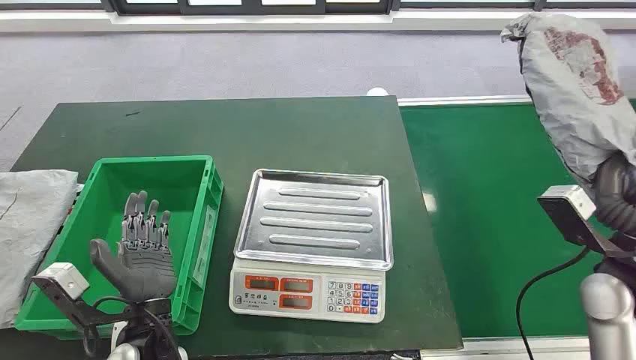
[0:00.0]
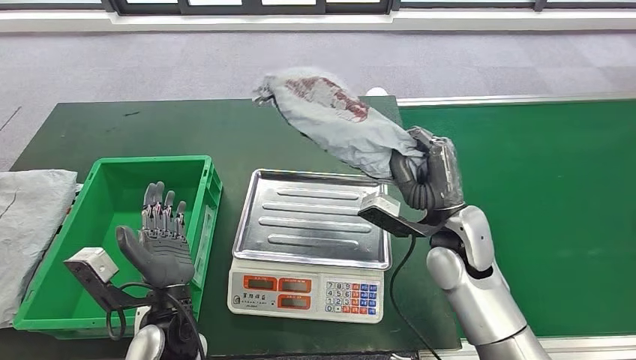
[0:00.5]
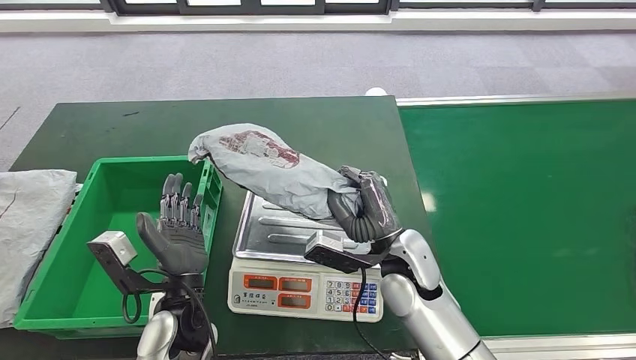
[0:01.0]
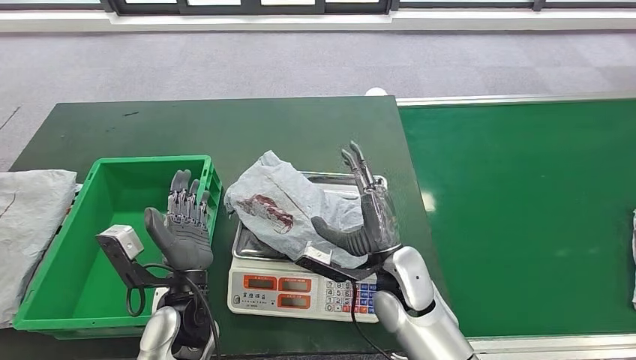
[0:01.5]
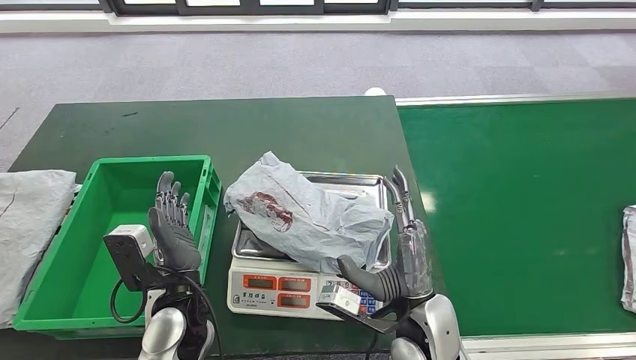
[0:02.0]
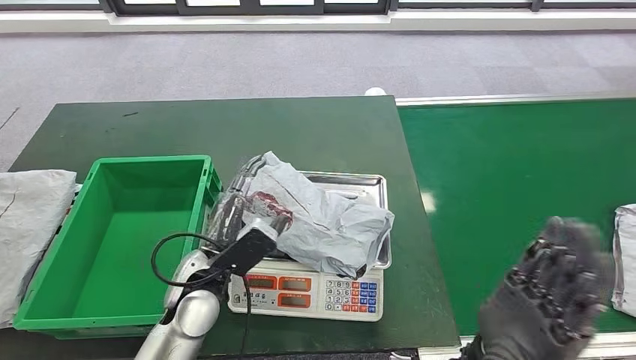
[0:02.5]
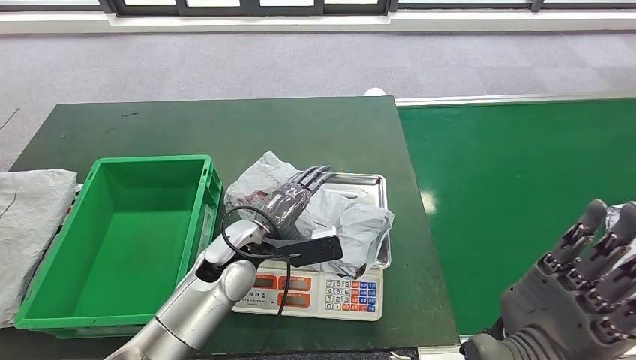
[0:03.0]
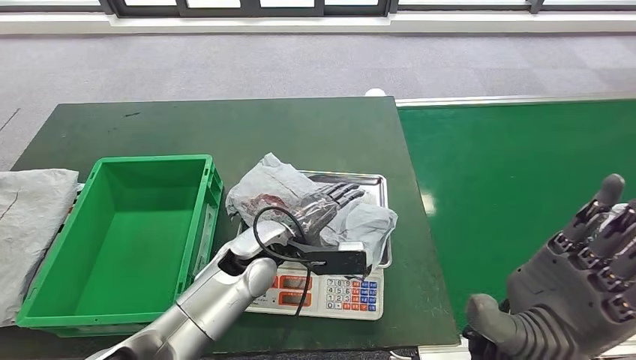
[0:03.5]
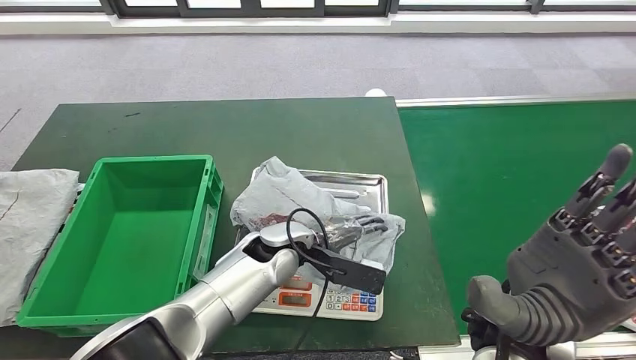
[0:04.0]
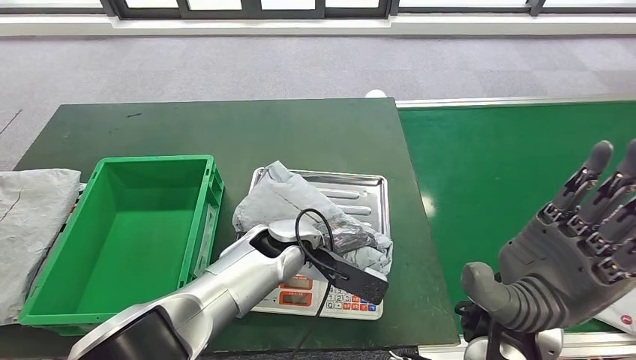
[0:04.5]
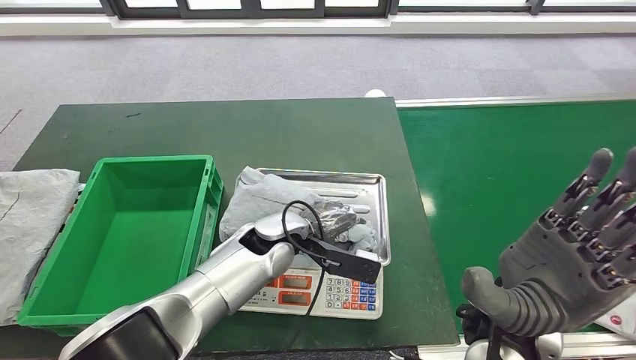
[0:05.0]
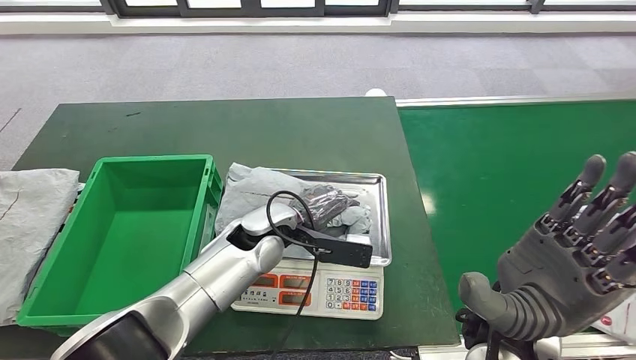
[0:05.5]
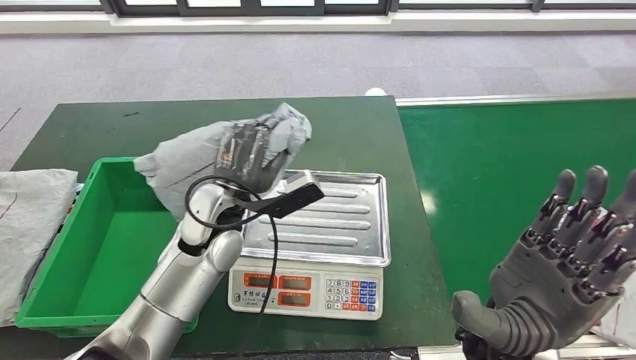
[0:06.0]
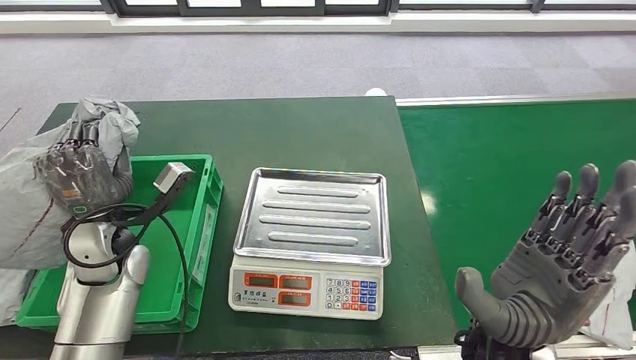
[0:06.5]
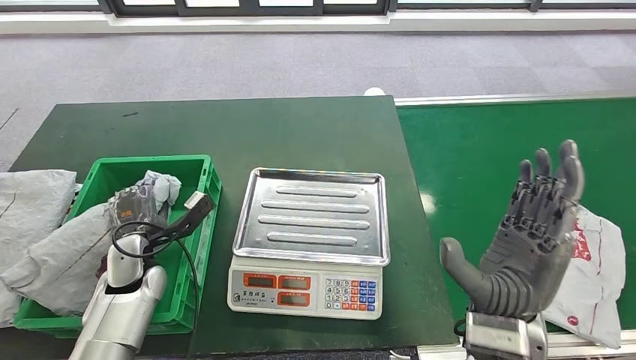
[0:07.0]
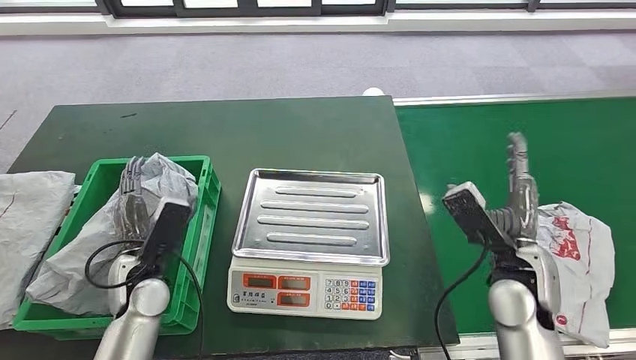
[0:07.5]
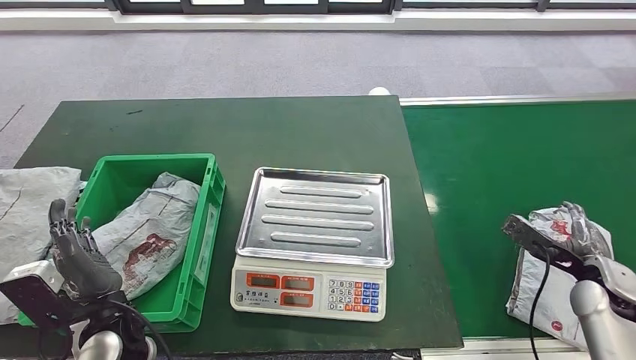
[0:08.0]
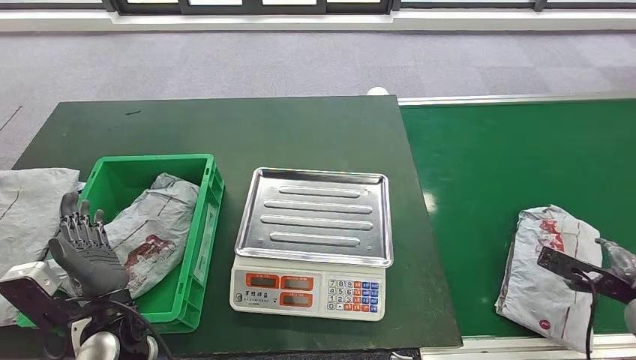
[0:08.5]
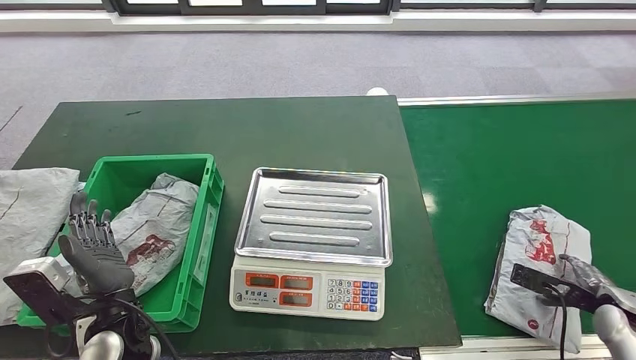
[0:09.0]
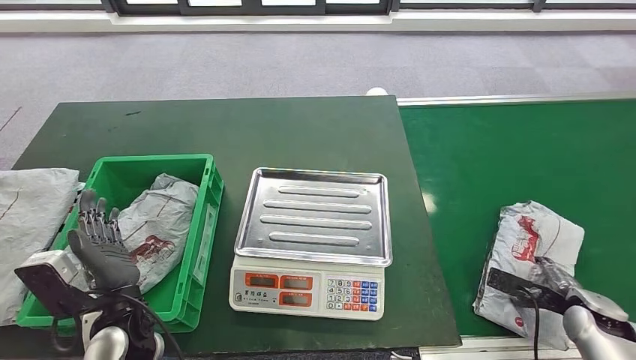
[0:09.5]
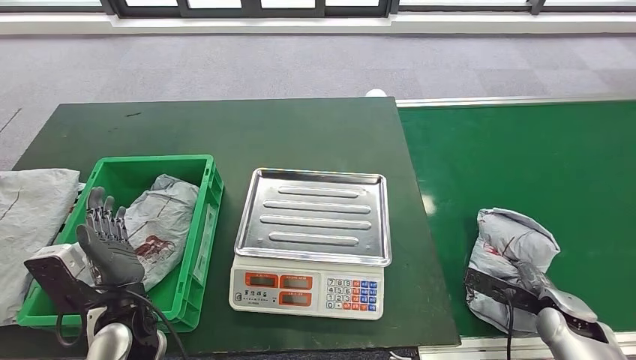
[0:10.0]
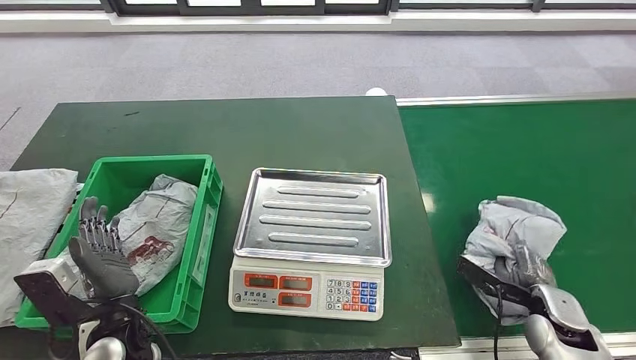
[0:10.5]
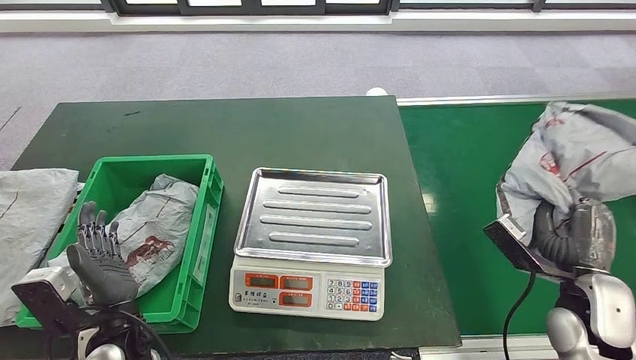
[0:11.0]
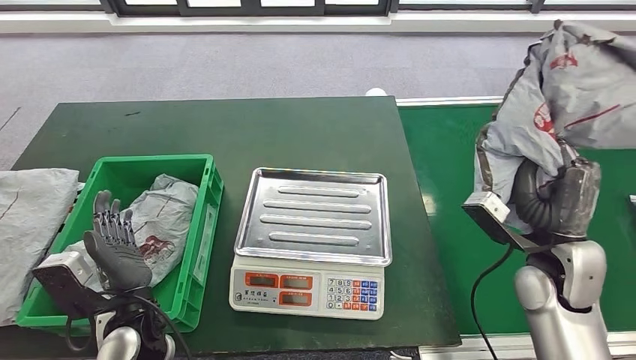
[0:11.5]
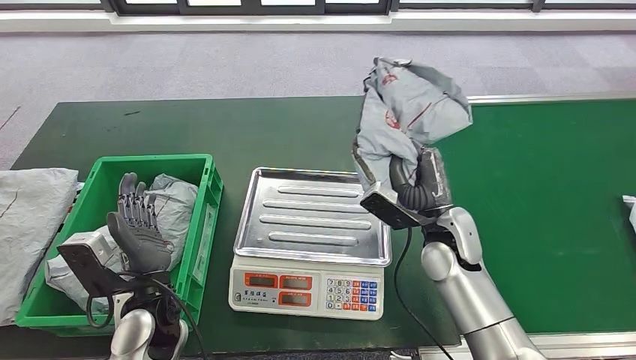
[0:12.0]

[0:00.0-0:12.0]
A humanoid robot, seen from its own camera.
Step, 0:00.0 to 0:01.0: Take the parcel off the conveyor belt.
Step, 0:01.5 to 0:02.5: Place the parcel onto the inbound machine.
Step, 0:03.0 to 0:06.0: Pick up the parcel from the inbound machine.
Step, 0:06.5 to 0:08.0: Put the parcel inside the courier box.
Step, 0:08.5 to 0:11.5: Pick up the parcel from the conveyor belt.

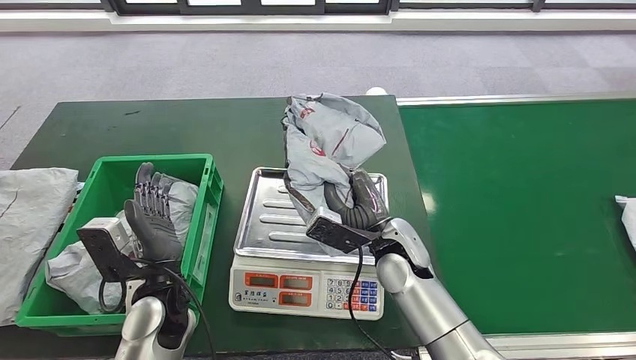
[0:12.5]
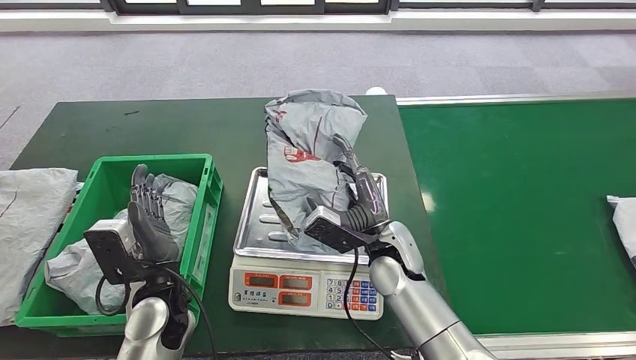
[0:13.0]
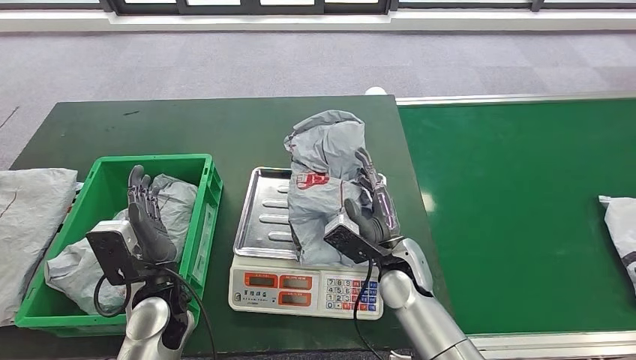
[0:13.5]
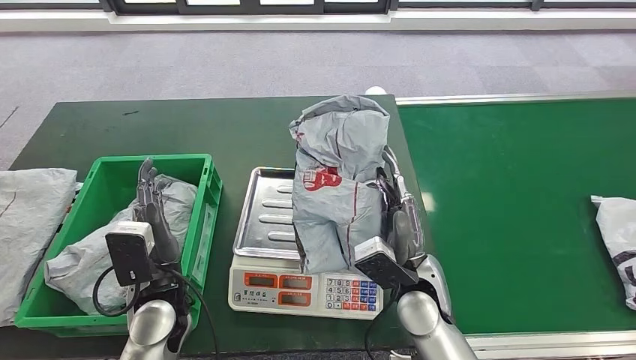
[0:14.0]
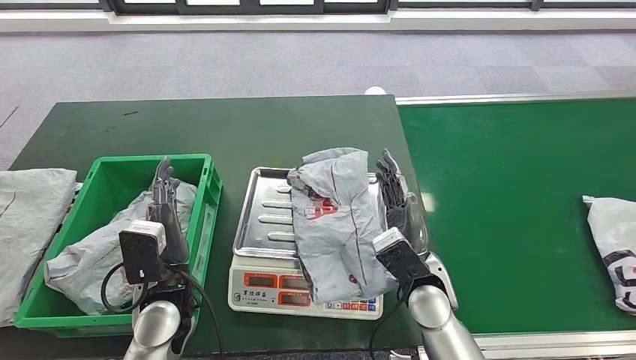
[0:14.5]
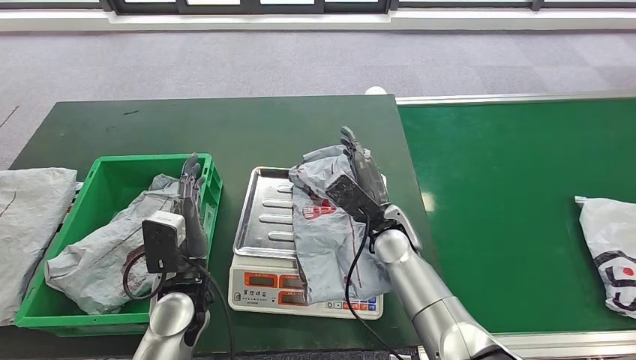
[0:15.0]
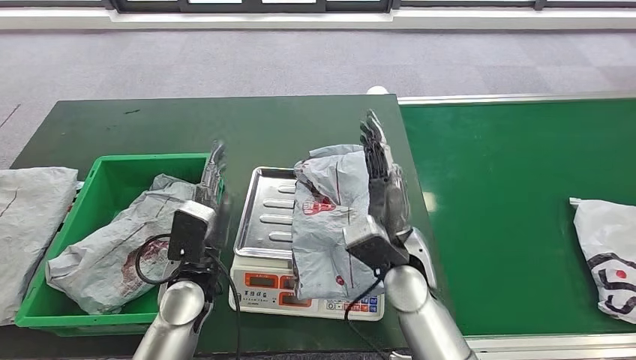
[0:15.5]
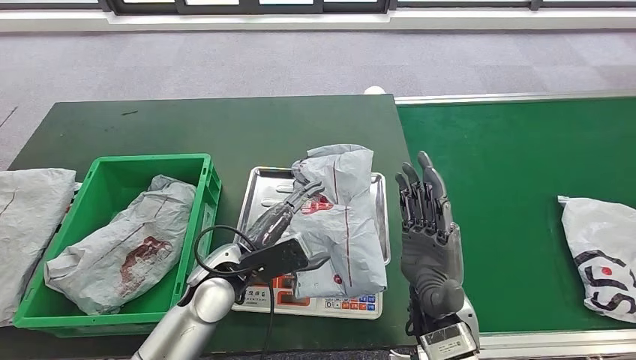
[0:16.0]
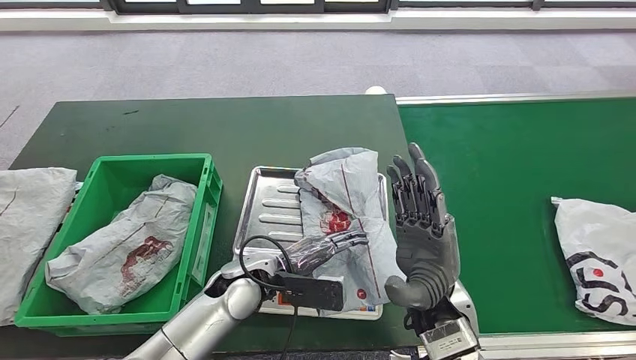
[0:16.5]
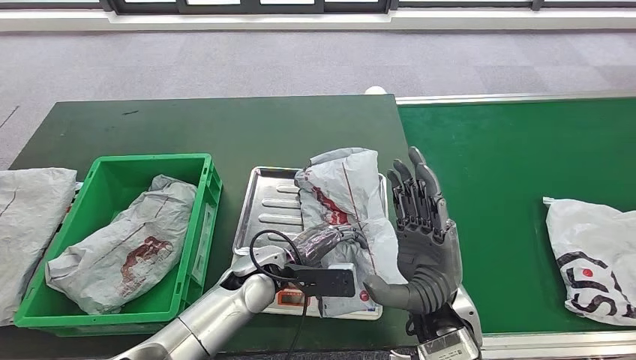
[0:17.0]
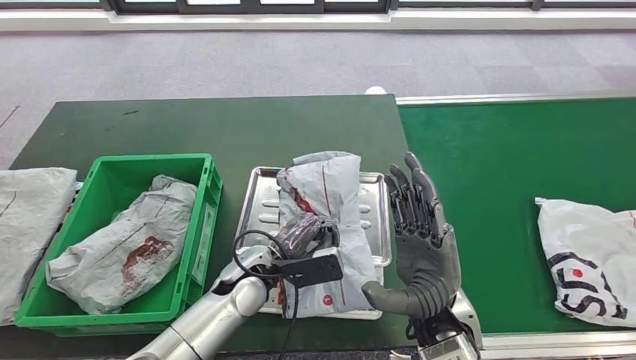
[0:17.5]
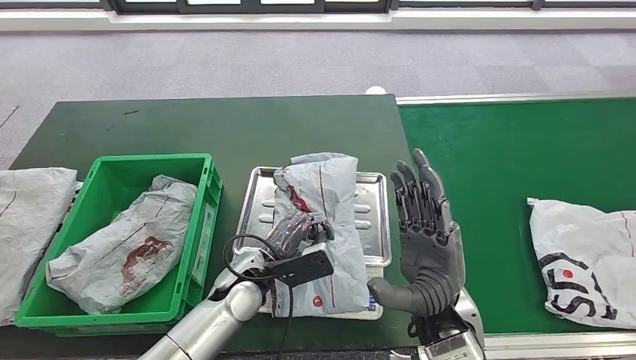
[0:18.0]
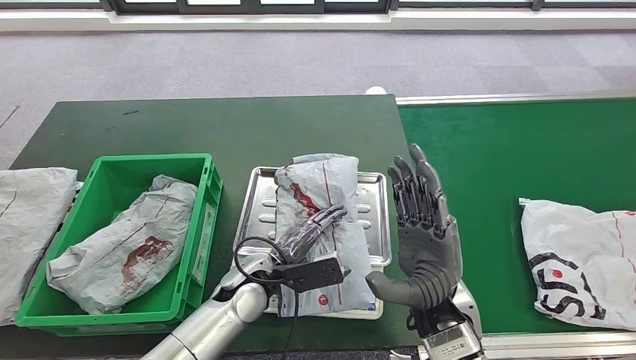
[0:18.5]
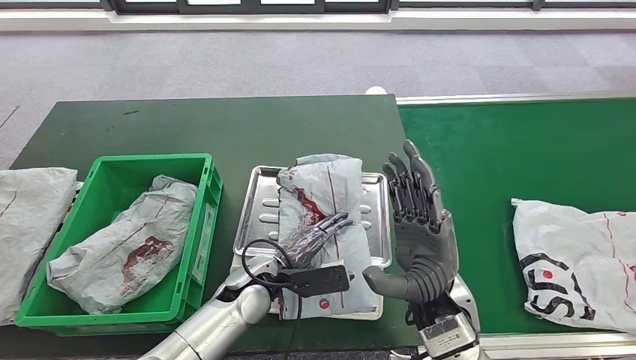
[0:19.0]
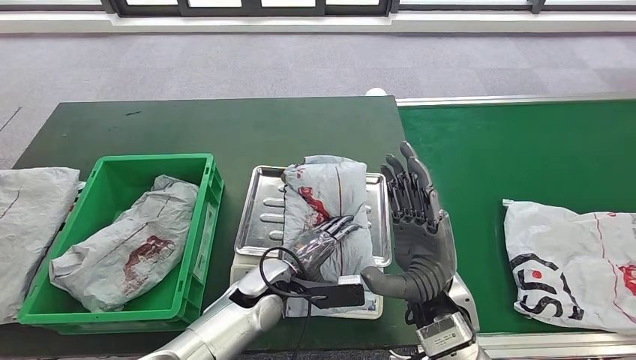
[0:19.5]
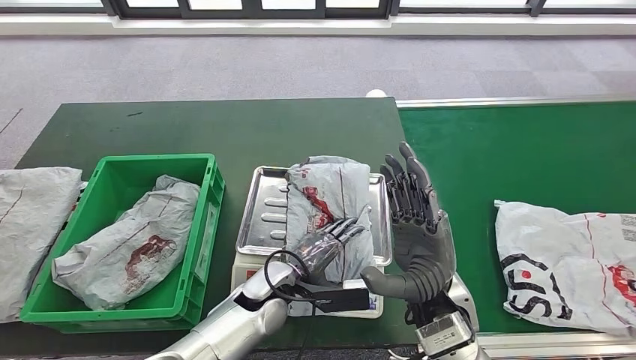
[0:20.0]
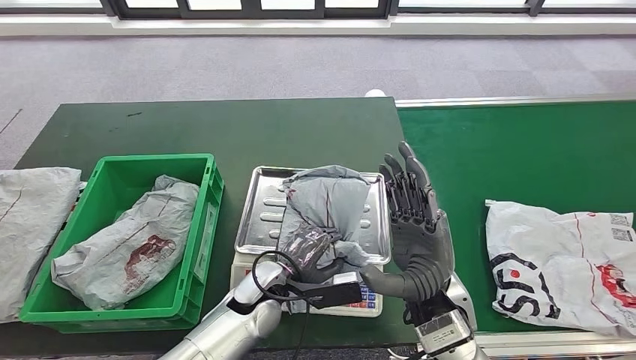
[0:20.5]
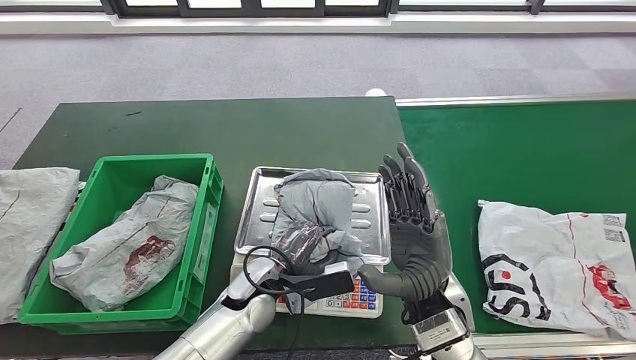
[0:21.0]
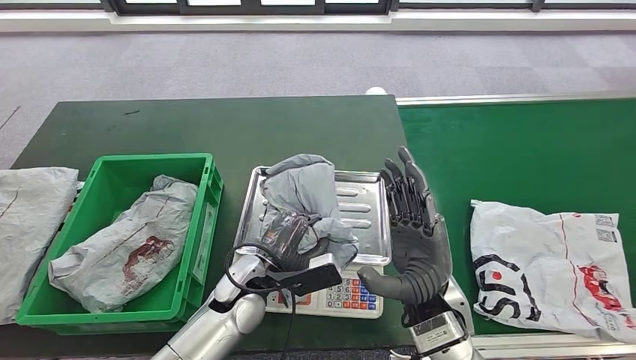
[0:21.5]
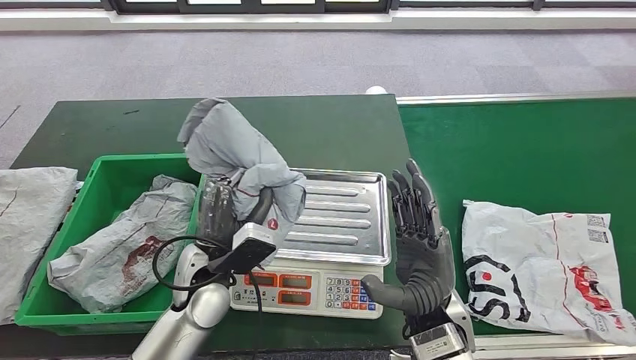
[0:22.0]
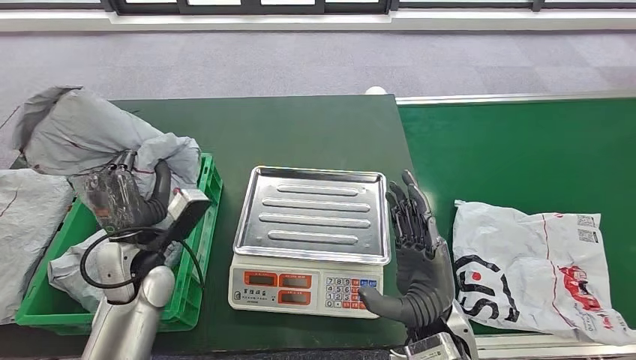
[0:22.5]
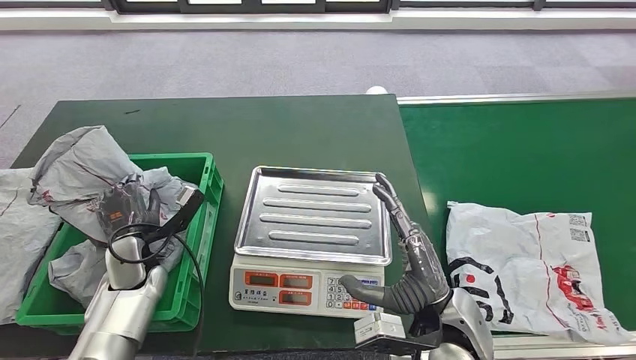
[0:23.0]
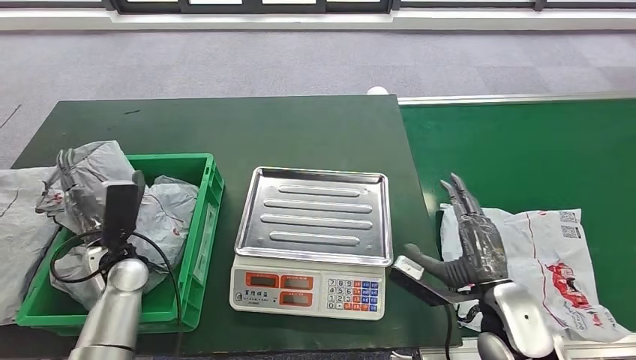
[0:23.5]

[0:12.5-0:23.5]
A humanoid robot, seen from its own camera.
Step, 0:12.5 to 0:14.5: Place the parcel onto the inbound machine.
Step, 0:15.0 to 0:21.0: Pick up the parcel from the inbound machine.
Step, 0:21.5 to 0:22.5: Place the parcel into the delivery box.
0:12.5 to 0:14.5: The right hand travels backward by roughly 5 cm.
0:14.5 to 0:16.0: The right hand shifts approximately 10 cm backward and upward, while the left hand heads to the right, covering roughly 5 cm.
0:16.0 to 0:18.0: The left hand shifts by some 5 cm.
